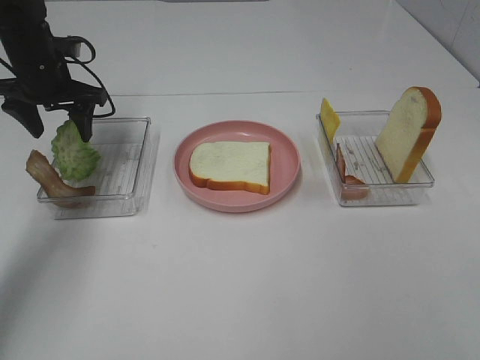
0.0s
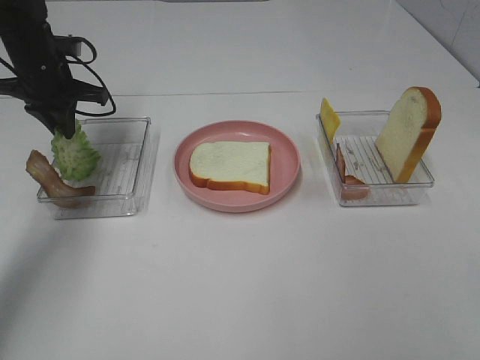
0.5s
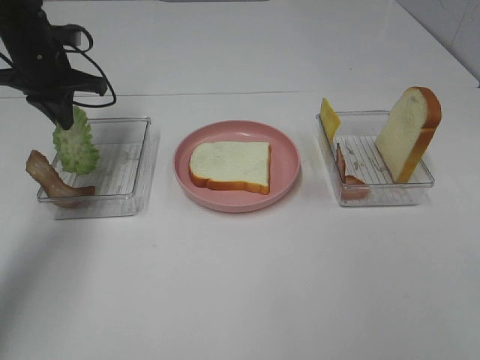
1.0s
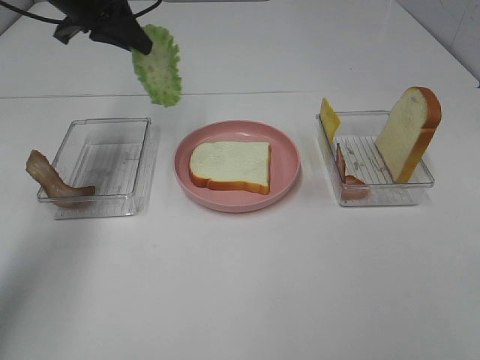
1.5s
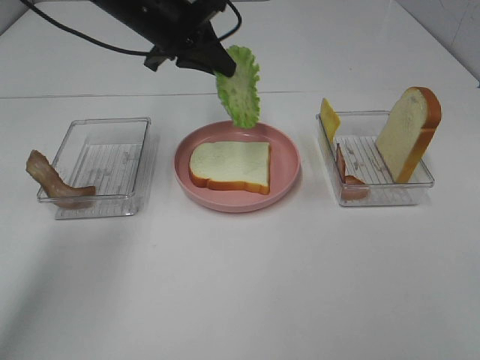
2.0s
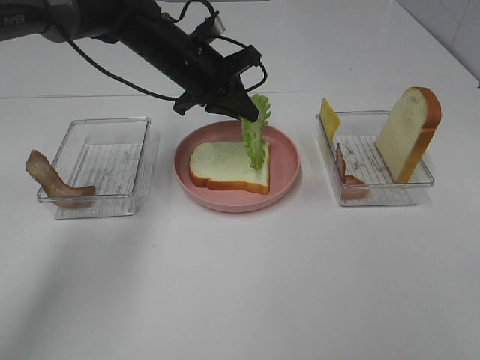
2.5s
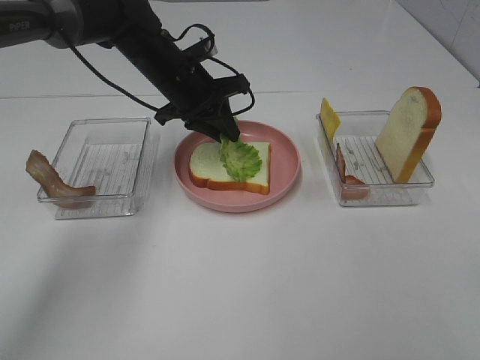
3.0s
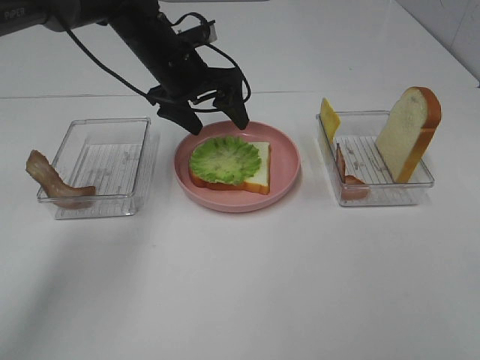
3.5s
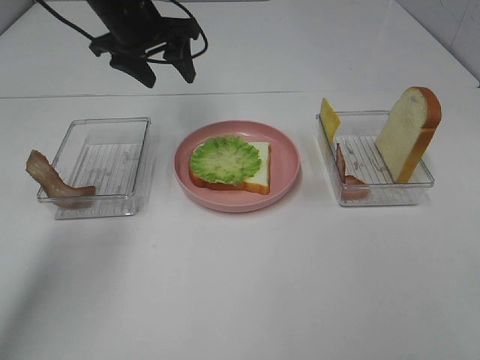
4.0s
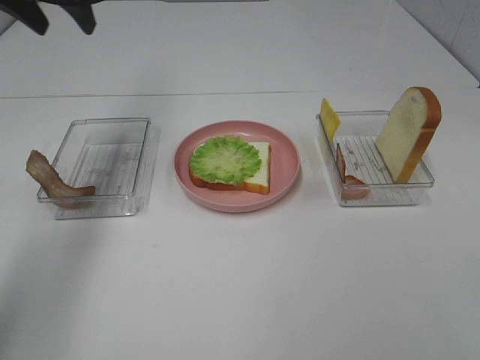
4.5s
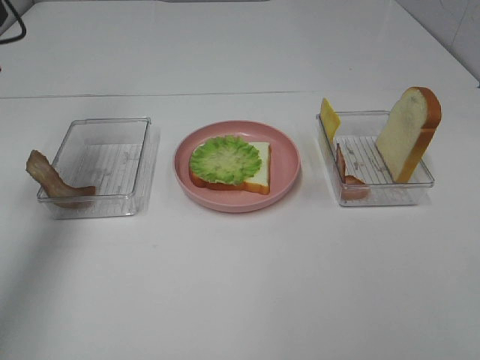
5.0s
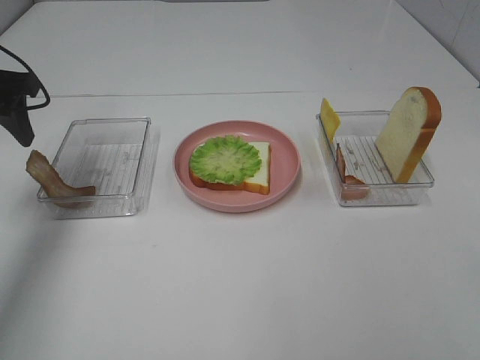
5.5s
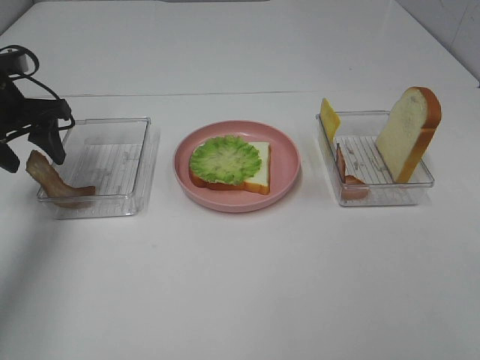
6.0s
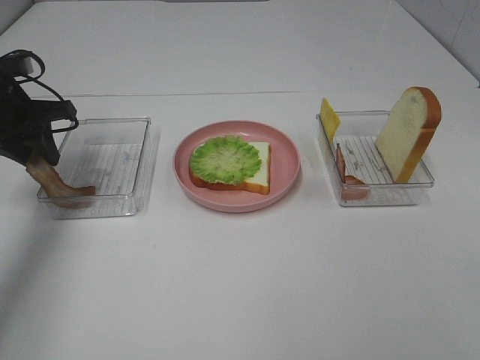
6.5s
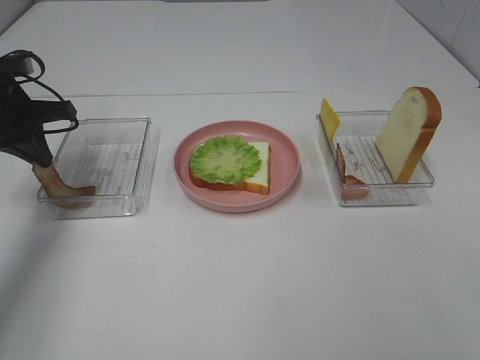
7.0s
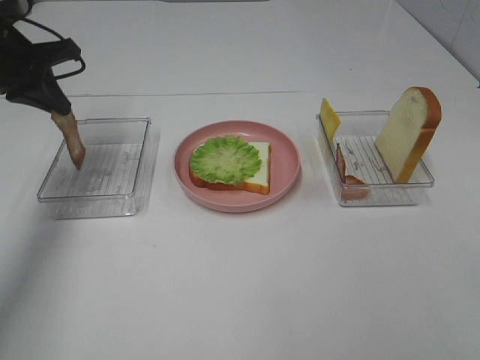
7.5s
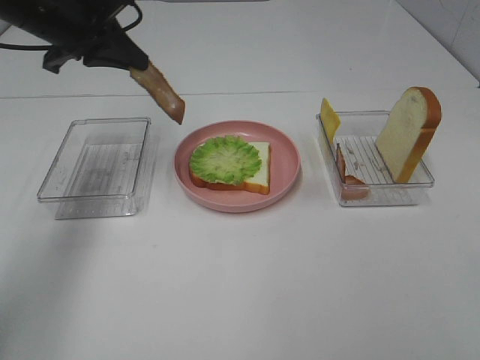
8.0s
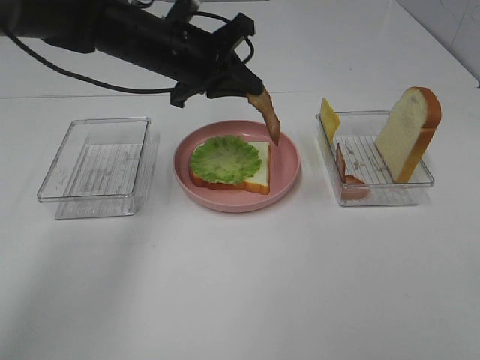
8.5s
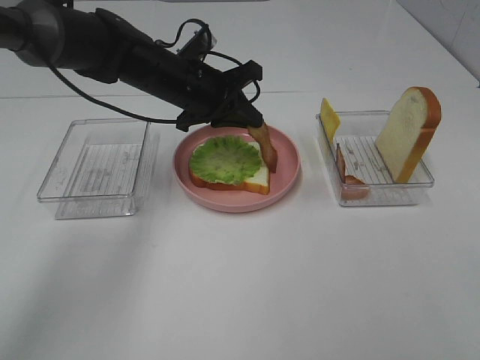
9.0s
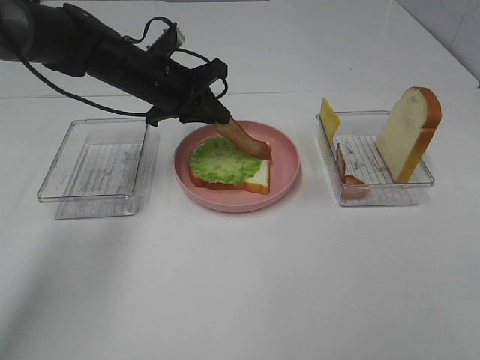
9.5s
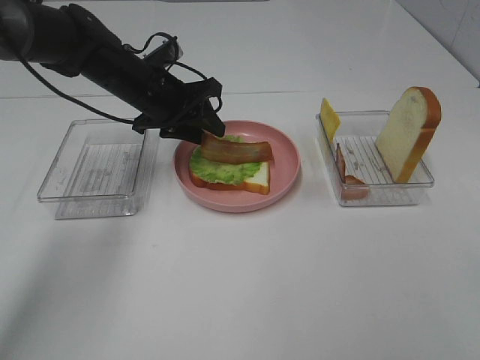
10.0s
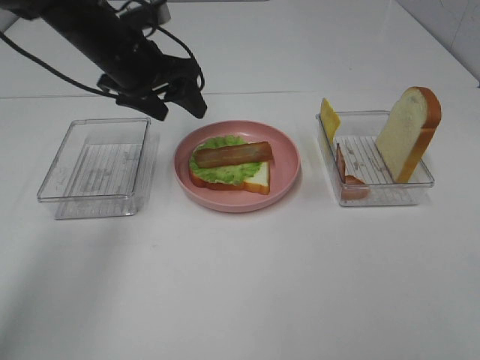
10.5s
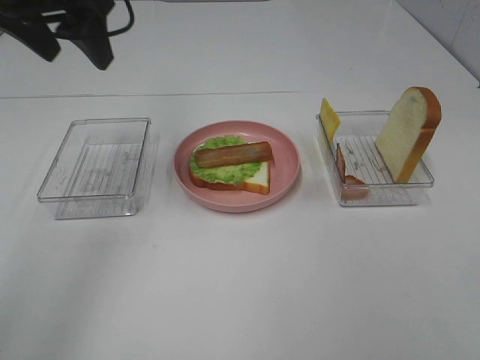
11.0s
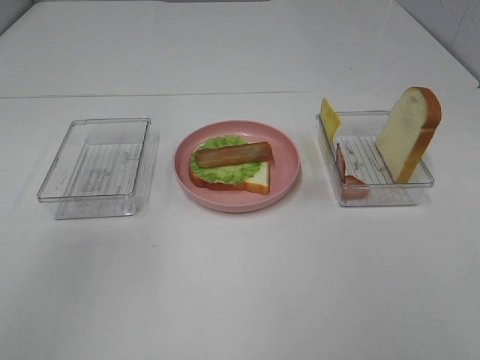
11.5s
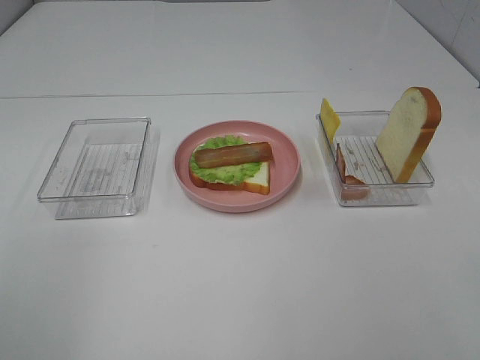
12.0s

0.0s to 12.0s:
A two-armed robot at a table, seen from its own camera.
Task of the whole recording: Make sandwiches.
Step, 1.0s to 3.5s: Left hand:place the lettuce slice on the bread slice.
Step, 4.0s to 7.0s: Left hand:grab the bacon.
Step, 7.5s to 10.0s: Left hand:place bacon on lettuce slice.
0.0s to 2.0s: The left gripper travels to the right and upward by roughly 15 cm, and closes up.
2.0s to 4.0s: The left gripper travels downward and back again, about 10 cm each way, and opens its fingers.
4.0s to 6.0s: The left gripper heads to the left, backward and downward, covering some 20 cm.
6.0s to 8.0s: The left gripper is displaced to the right and upward by about 10 cm, and closes.
8.0s to 10.0s: The left gripper heads downward and to the right, covering some 15 cm, and opens.
10.0s to 12.0s: The left gripper is displaced backward, upward and to the left by roughly 40 cm.

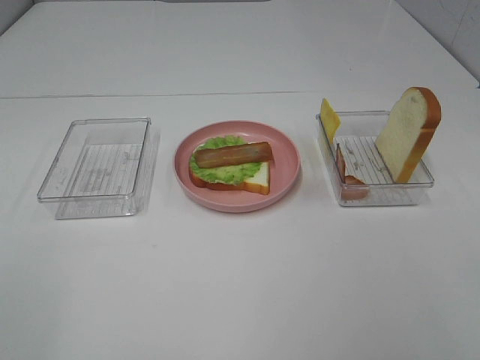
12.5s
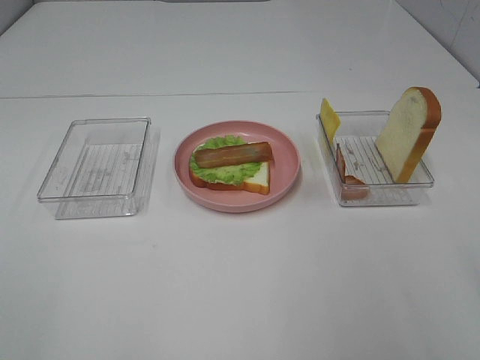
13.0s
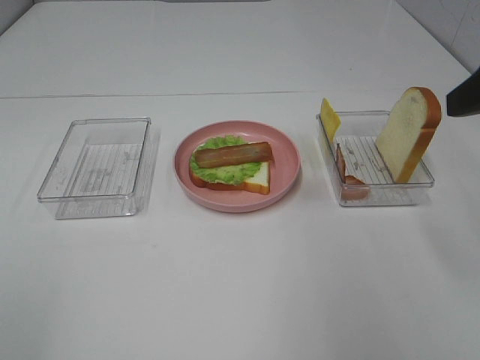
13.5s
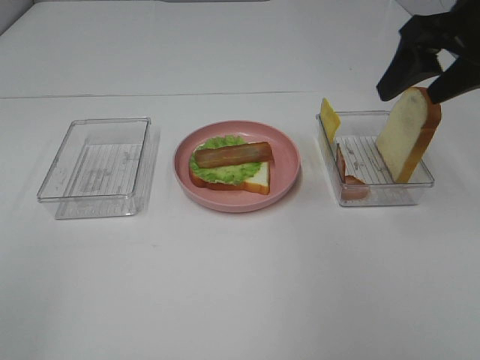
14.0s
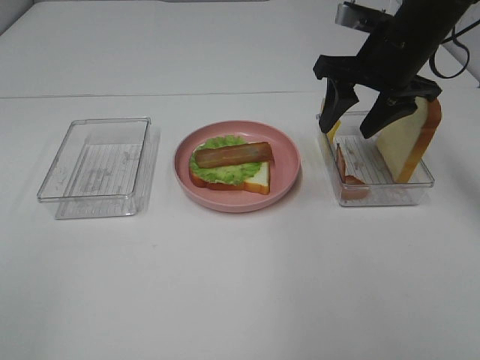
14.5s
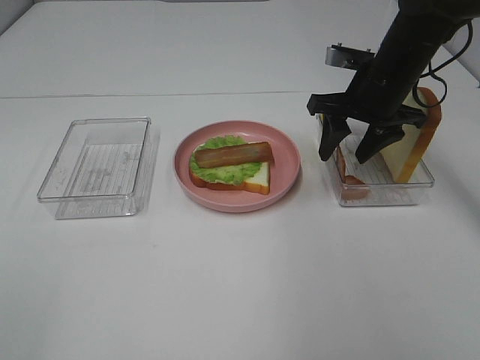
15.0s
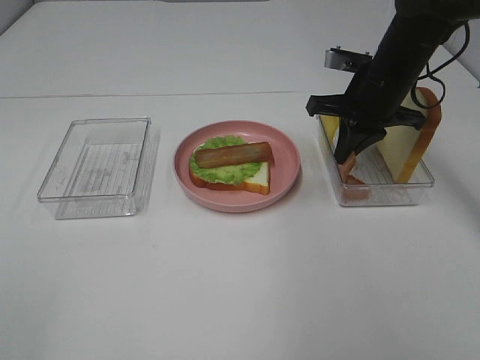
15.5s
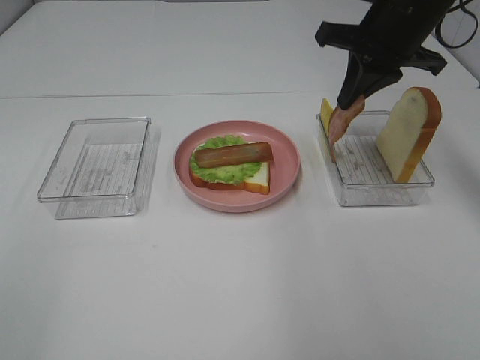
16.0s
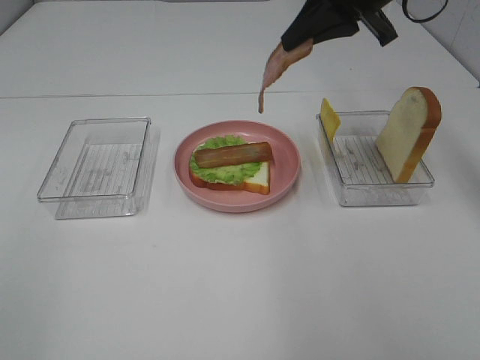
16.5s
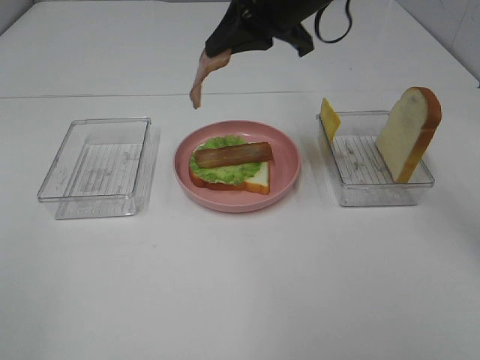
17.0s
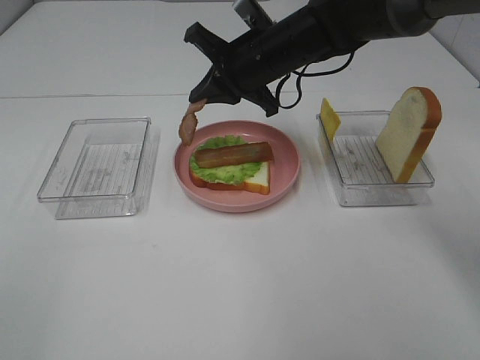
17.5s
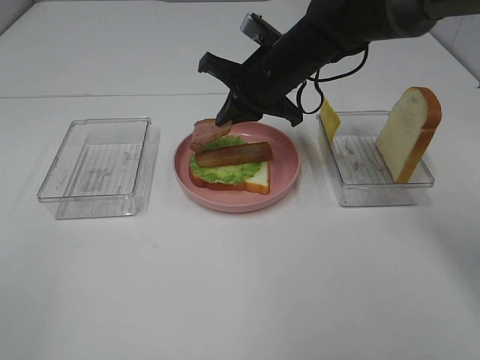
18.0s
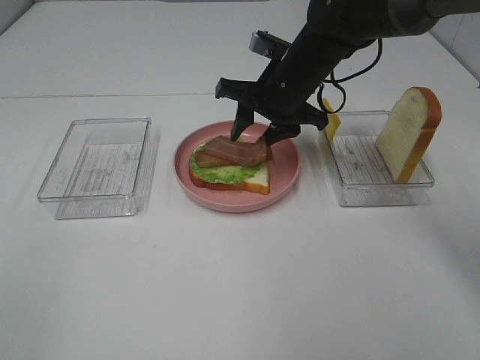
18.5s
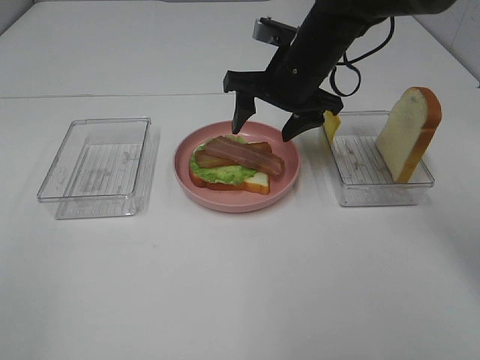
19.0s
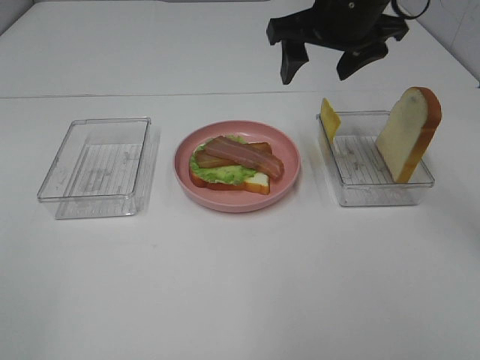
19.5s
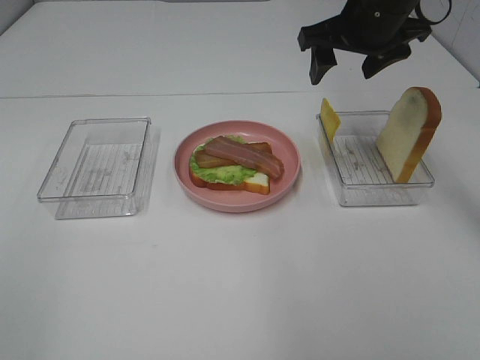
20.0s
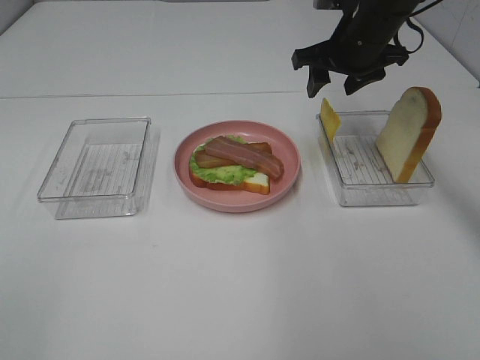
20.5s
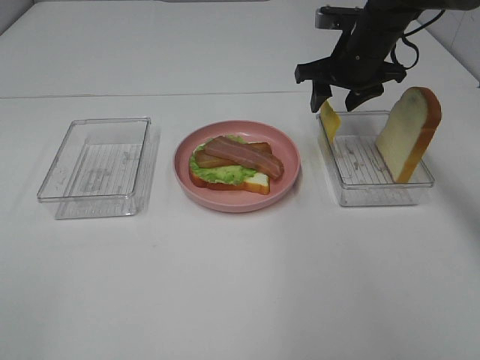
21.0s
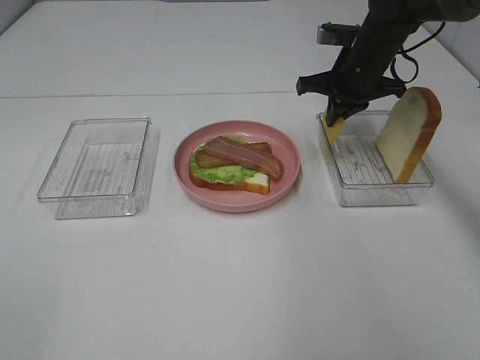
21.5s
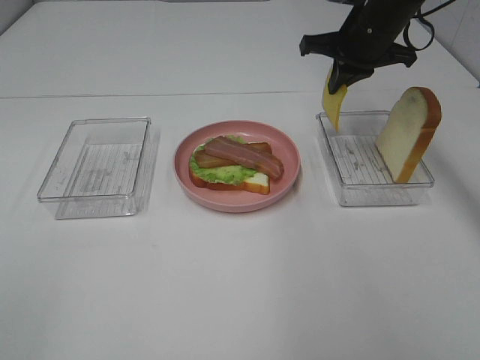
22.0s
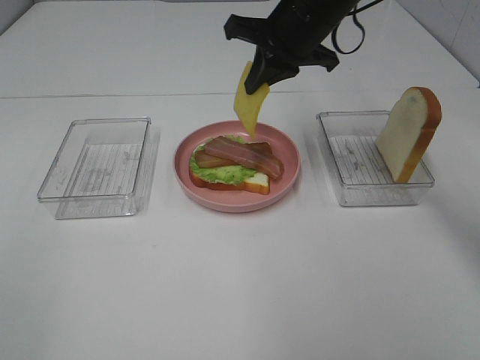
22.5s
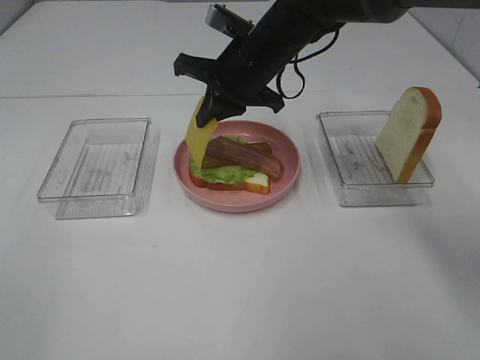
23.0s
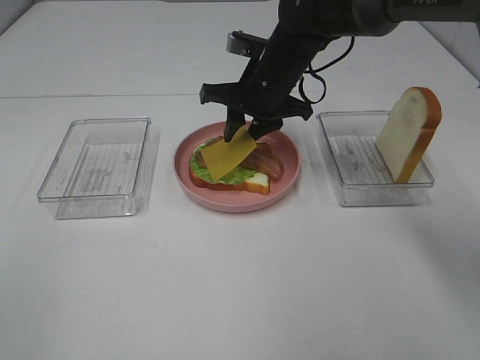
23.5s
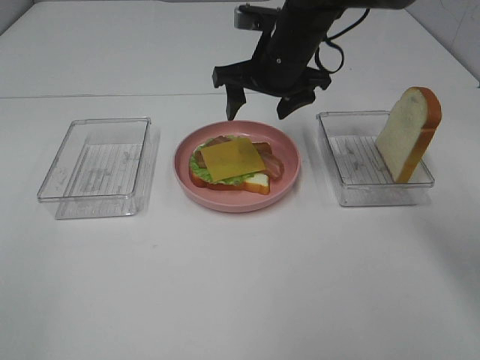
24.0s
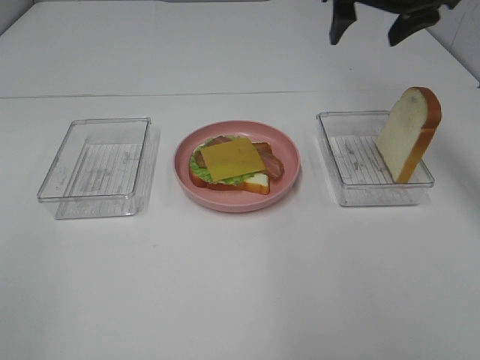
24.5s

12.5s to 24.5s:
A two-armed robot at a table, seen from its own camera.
Task of the whole recording: Make sandwiches.
Step, 12.5s to 15.0s: Right hand:grab the bacon.
Step, 15.5s to 18.5s: Right hand:place bacon on bacon.
Step, 19.0s to 21.5s: Right hand:grab the cheese slice.
Step, 22.0s to 23.5s: Right hand:place the cheese slice on top of the bacon.
12.5s to 14.5s: The right gripper moves forward, approximately 40 cm.
14.5s to 16.5s: The right gripper travels upward by about 10 cm, and closes up.
16.5s to 18.5s: The right gripper moves downward and to the left, approximately 15 cm, and opens its fingers.
18.5s to 20.5s: The right gripper goes about 10 cm to the right.
20.5s to 22.5s: The right gripper heads to the left, covering some 10 cm, and closes up.
22.5s to 24.5s: The right gripper shifts some 15 cm to the right and upward, and opens its fingers.

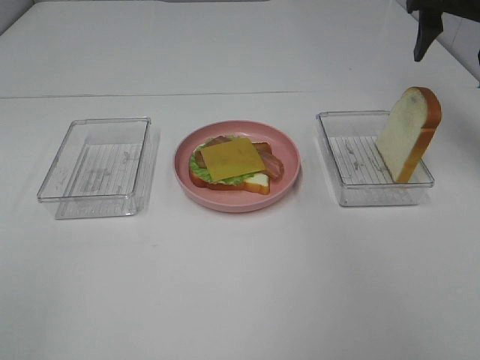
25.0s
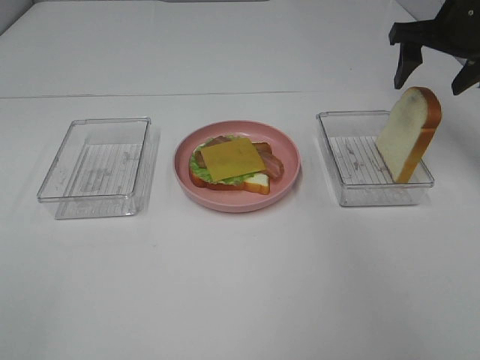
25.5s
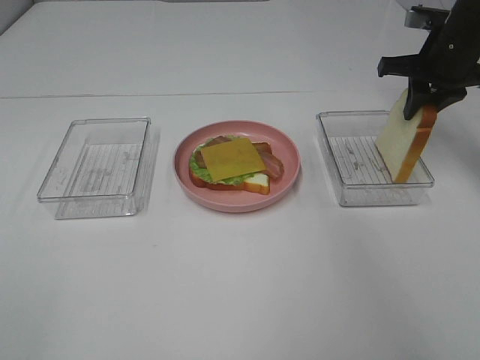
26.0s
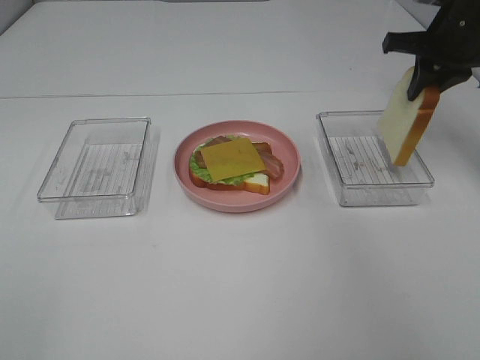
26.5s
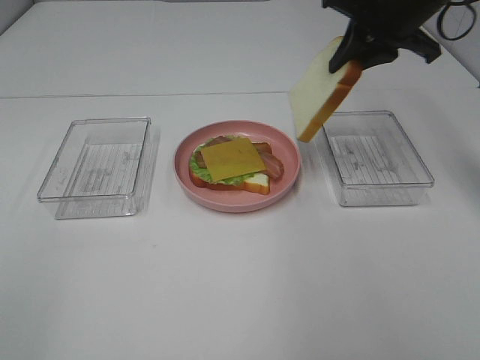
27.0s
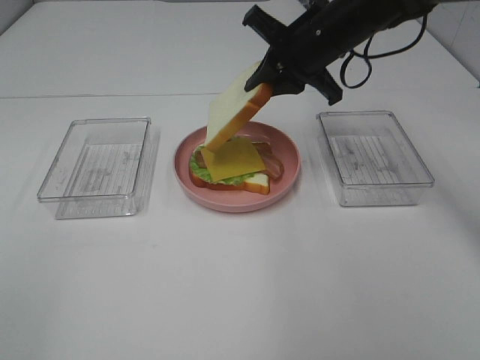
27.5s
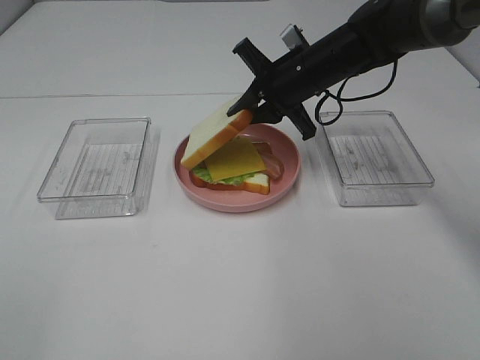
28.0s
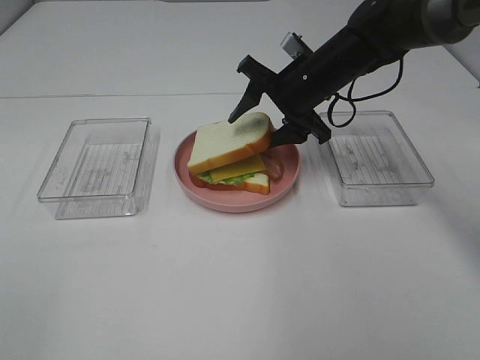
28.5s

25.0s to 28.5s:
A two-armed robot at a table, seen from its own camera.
Task of the whole recording: Make sandwiches.
25.0s to 27.0s: The right gripper travels to the left by about 10 cm, and closes.
27.0s to 28.5s: The right gripper shifts approximately 15 cm downward and to the left, and opens its fingers.
